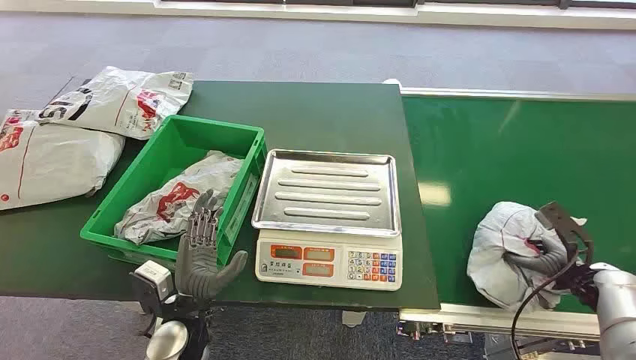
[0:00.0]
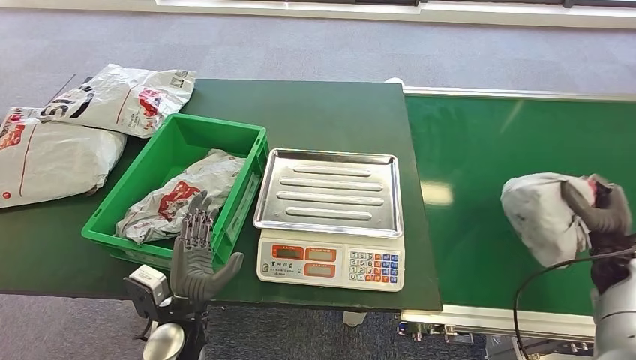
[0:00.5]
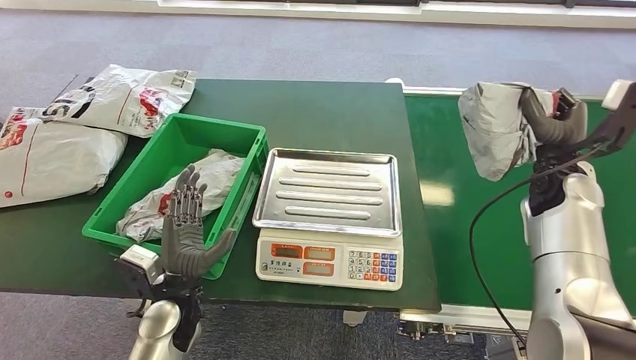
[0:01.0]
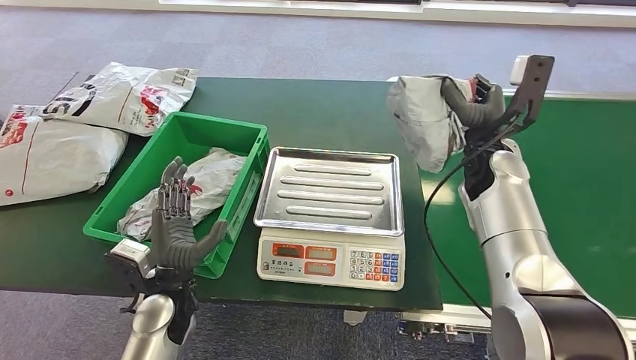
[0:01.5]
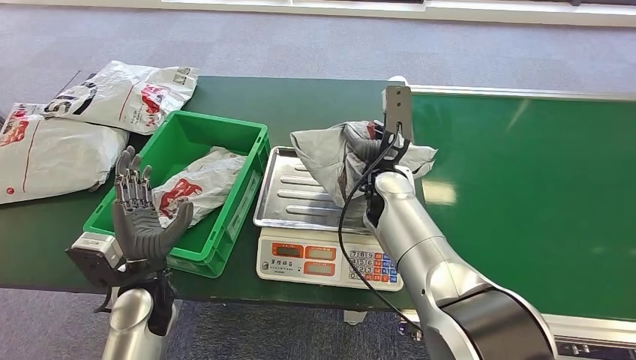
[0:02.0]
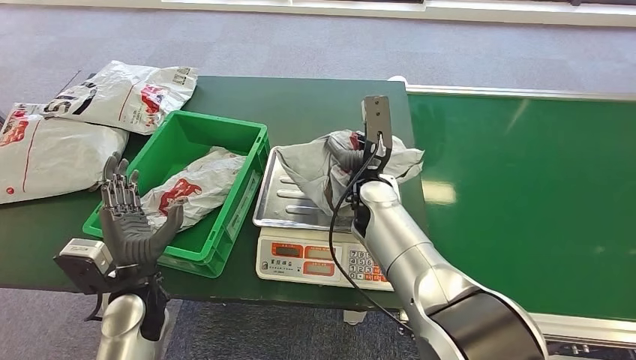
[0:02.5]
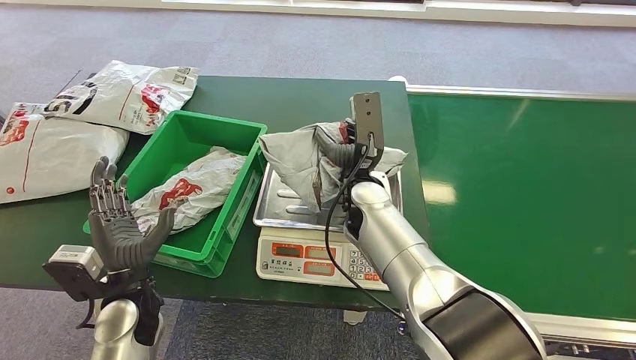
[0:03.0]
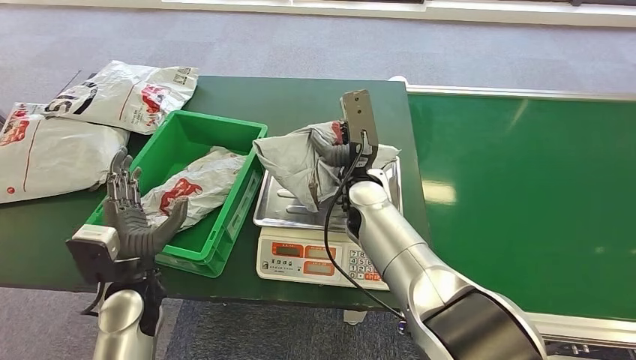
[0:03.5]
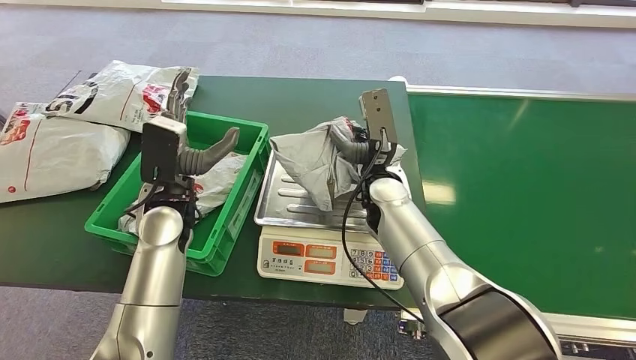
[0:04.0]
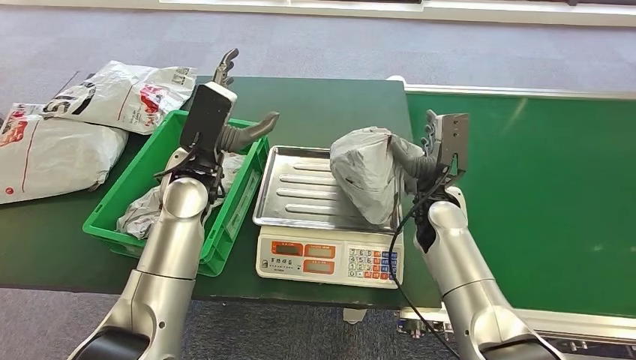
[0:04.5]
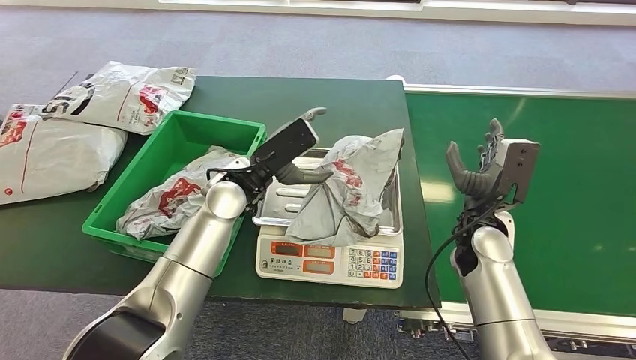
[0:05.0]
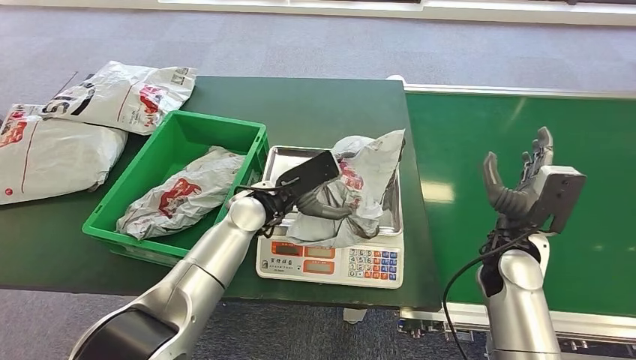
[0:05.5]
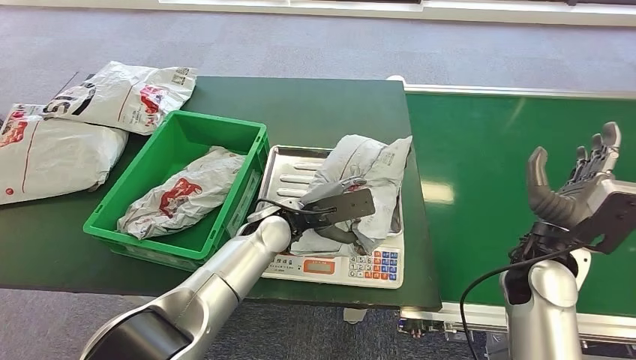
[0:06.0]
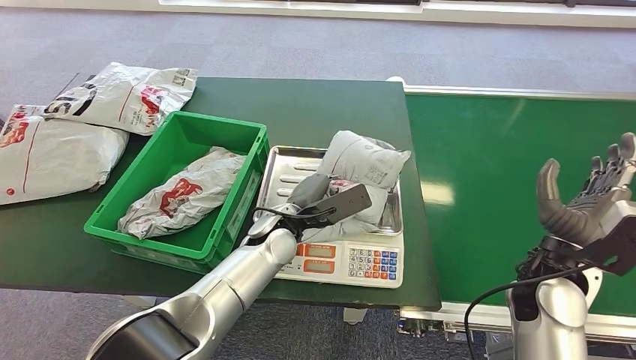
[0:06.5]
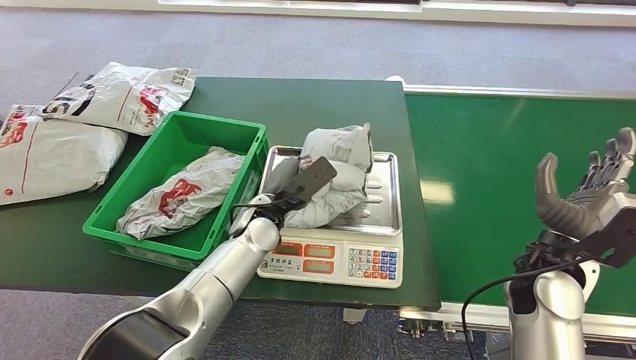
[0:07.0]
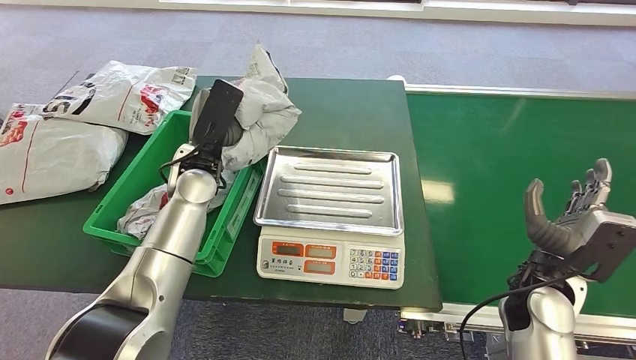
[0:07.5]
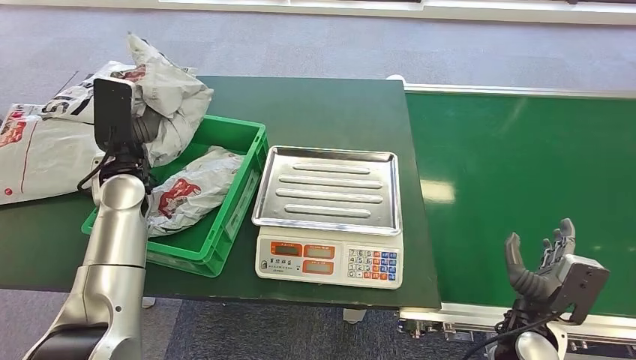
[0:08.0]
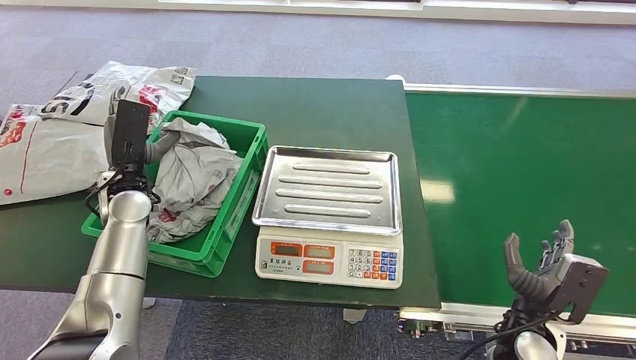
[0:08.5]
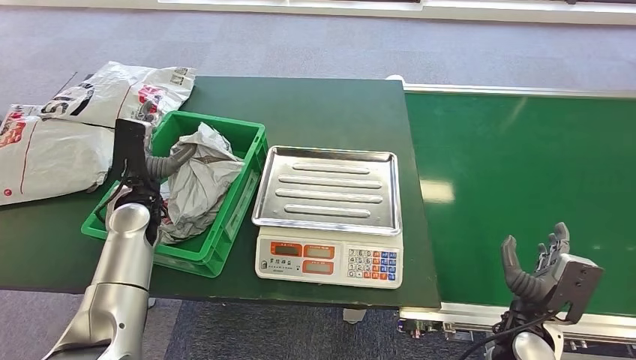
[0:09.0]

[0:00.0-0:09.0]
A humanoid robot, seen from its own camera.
Step, 0:00.0 to 0:00.5: Pick up the package from the conveyor belt.
Step, 0:01.0 to 0:04.5: Place the package onto the inbound machine.
Step, 0:05.0 to 0:07.0: Pick up the package from the inbound machine.
Step, 0:07.5 to 0:09.0: Place the package into the parcel locker.
